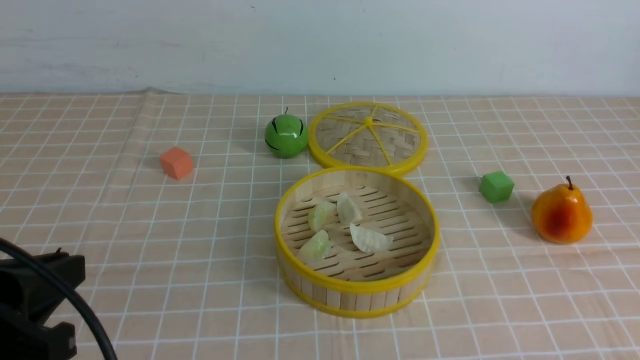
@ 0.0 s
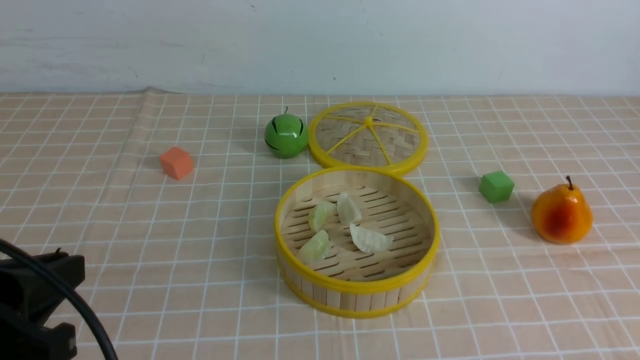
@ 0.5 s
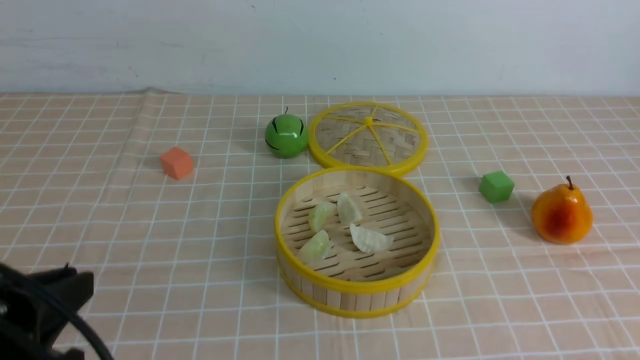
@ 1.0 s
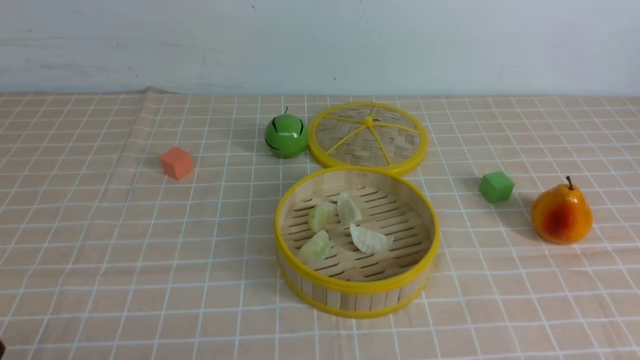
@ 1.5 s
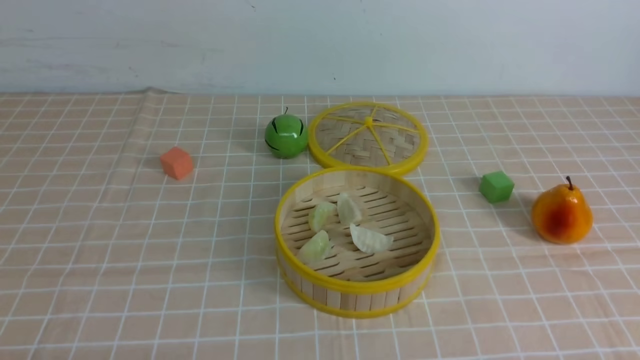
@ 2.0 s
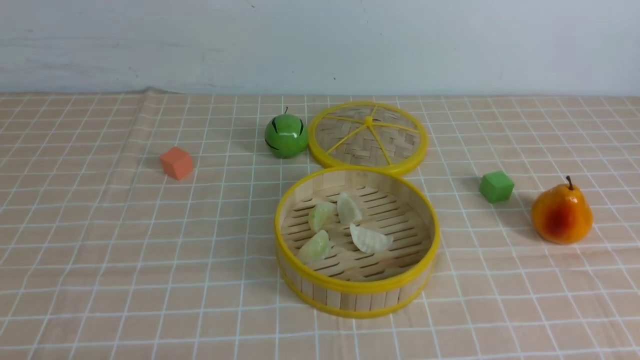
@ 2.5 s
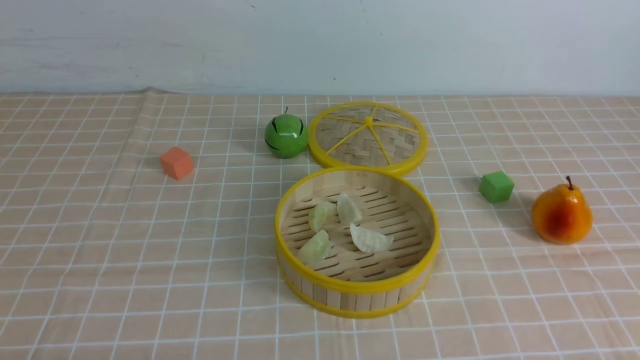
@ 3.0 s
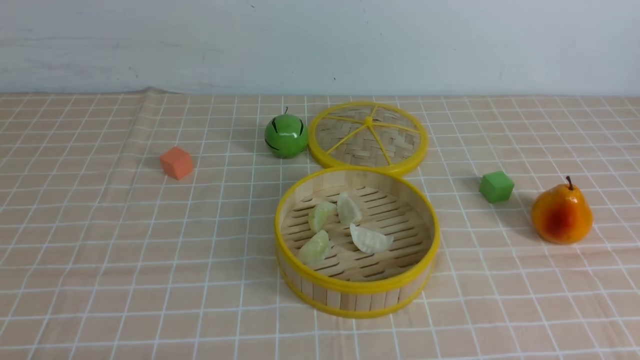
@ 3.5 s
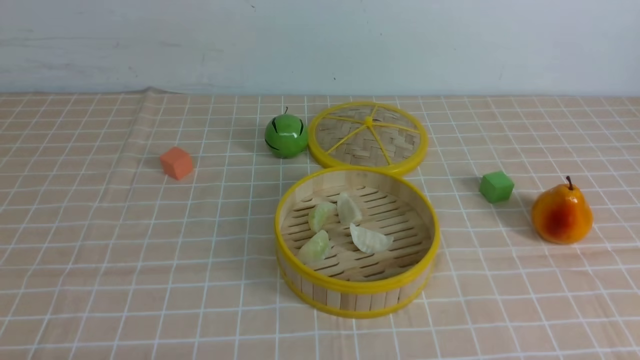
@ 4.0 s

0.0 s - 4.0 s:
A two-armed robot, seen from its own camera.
Task of the whole recording: put the dumplings into the steamer on the table with the brown tablecloth.
0.0 s - 2.0 s: The left gripper shifts approximately 15 cm downward.
2.0 s - 4.0 s: Both grippers stay put.

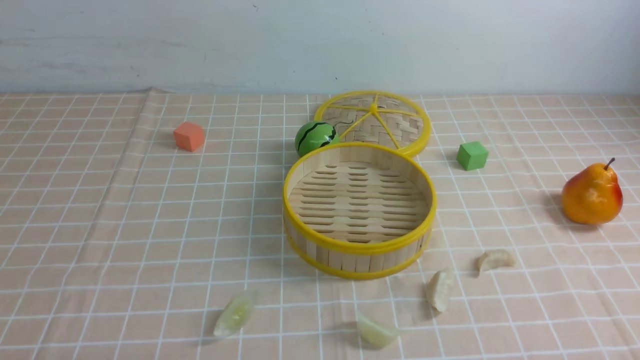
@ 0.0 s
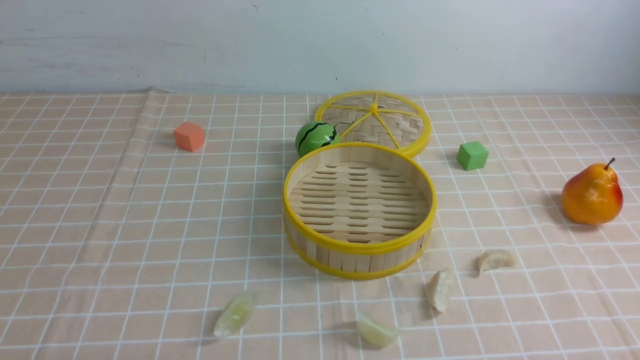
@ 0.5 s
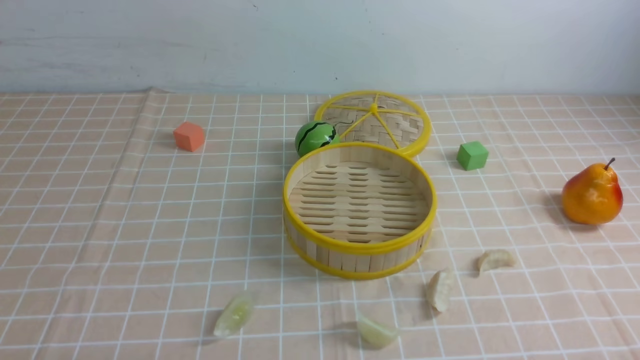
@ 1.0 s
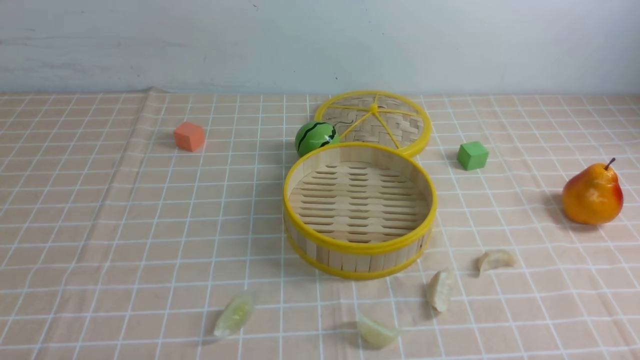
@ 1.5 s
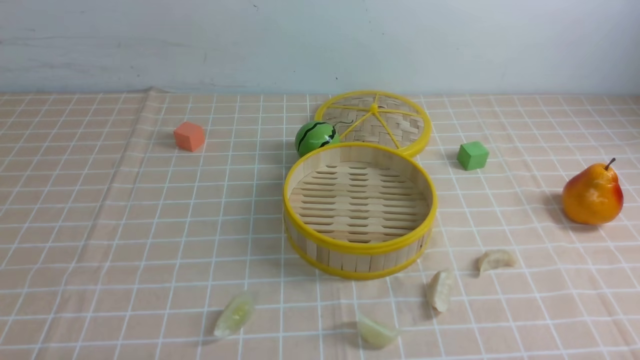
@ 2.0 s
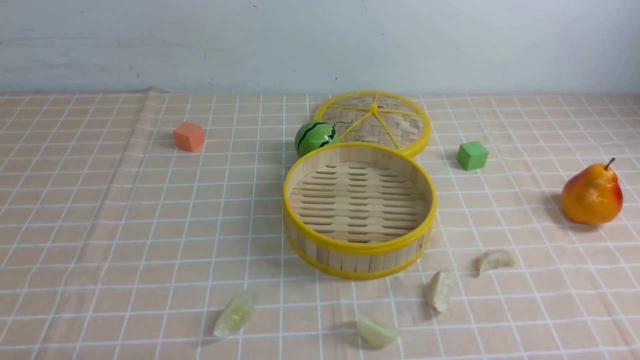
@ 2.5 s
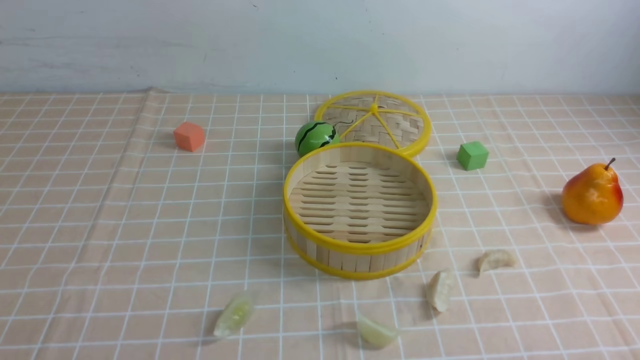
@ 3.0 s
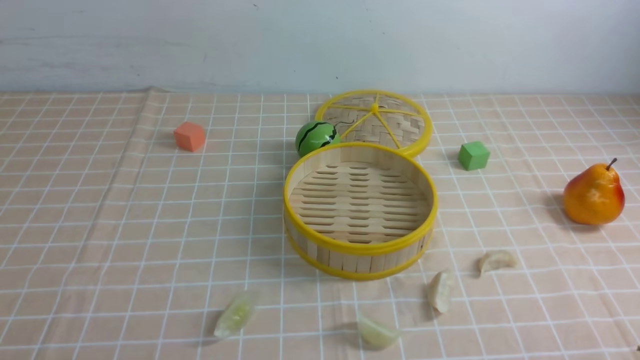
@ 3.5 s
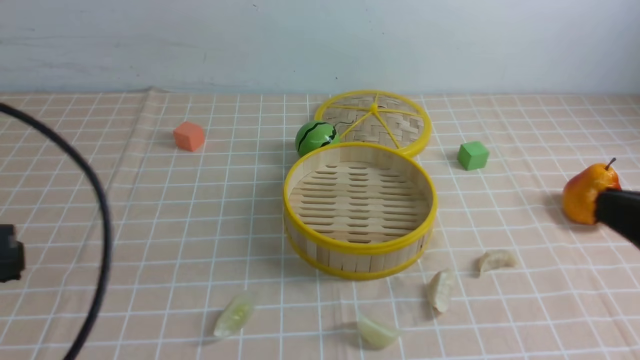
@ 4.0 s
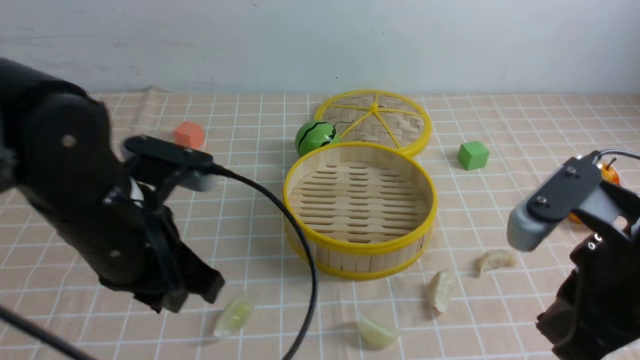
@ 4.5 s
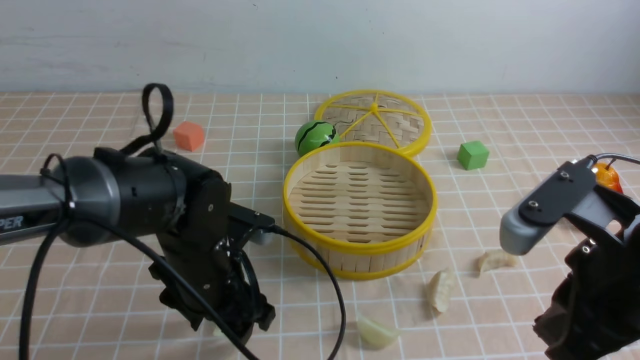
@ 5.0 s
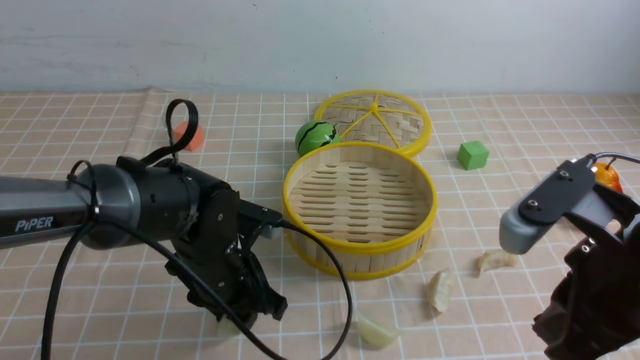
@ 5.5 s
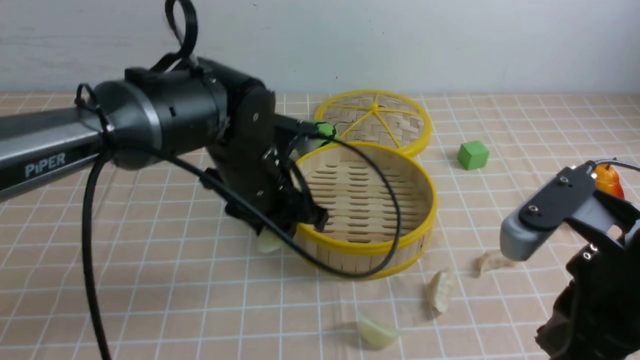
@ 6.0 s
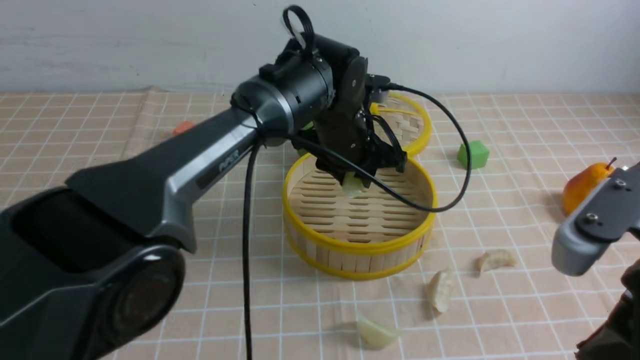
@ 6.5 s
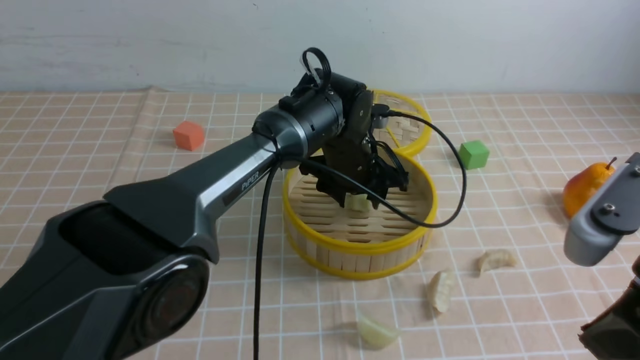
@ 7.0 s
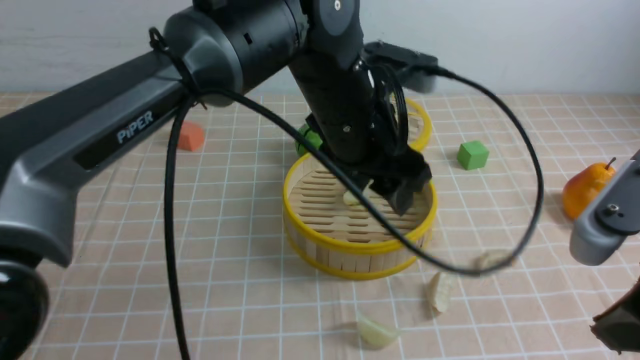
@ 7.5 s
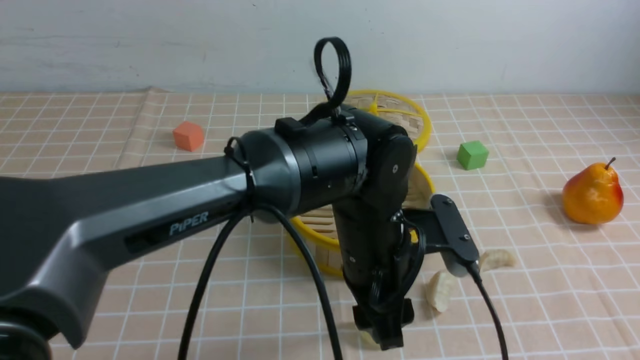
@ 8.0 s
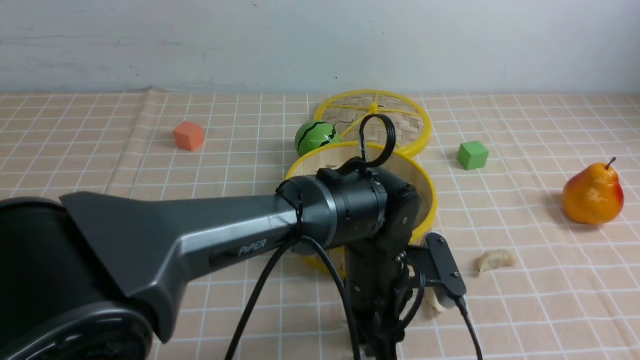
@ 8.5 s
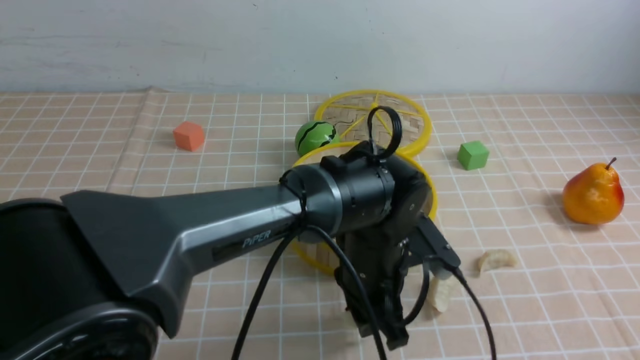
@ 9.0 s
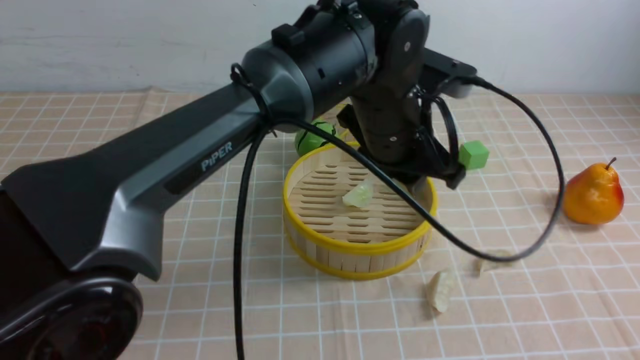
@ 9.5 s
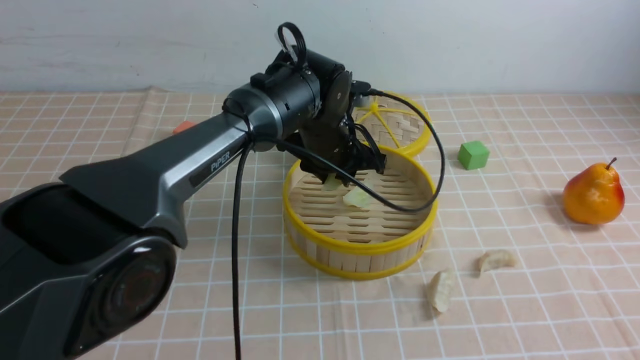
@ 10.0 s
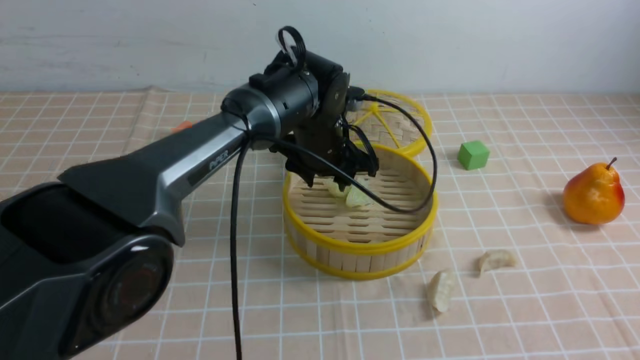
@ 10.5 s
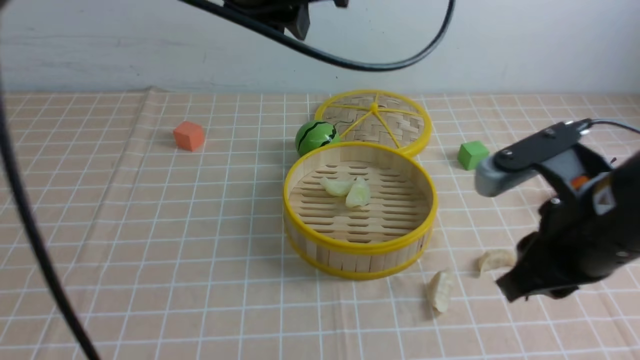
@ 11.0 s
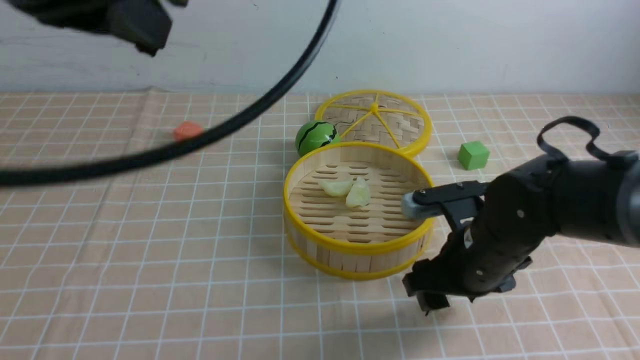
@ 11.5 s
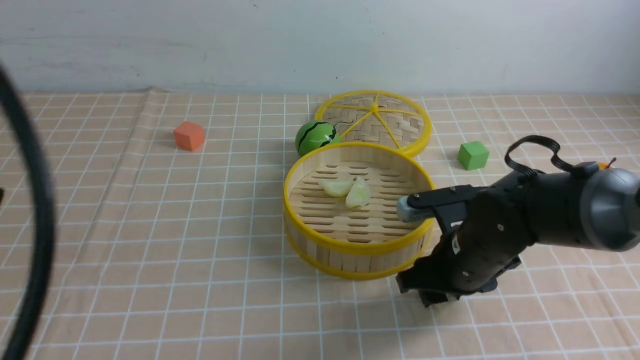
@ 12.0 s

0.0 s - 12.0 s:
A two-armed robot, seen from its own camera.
Task of the whole recording: put the dumplings into the steamer on the table with the brown tablecloth.
Step, 0.0 s - 5.0 s: use the left arm to grab a dumpling.
Step, 6.0 s - 7.0 s: use the left arm to put the dumpling into the steamer.
Step, 7.5 s - 8.5 s: use the left arm to grab a dumpling.
Step, 9.0 s - 10.5 s: use the left arm to put the dumpling into the steamer.
Step, 11.0 s - 12.0 s: use the right arm to grab a dumpling.
2.0 s - 4.0 s: The right gripper goes about 15 cm upward and forward, and closes. The left gripper heads upward, covering roughly 20 cm, and closes.
4.0 s - 6.0 s: The left gripper is displaced forward, to the right and downward by some 30 cm, and opens up. Meanwhile the right gripper is displaced to the left and forward by roughly 10 cm.
6.0 s - 8.0 s: The left gripper heads to the right and backward, covering some 15 cm; the right gripper goes approximately 15 cm backward, to the right and upward.
8.0 s - 10.0 s: The left gripper shifts approximately 15 cm forward, and closes its fingers.
10.0 s - 12.0 s: The right gripper is displaced forward, downward and to the left by some 30 cm, and opens; the left gripper moves backward, to the left and upward, some 50 cm, and closes up.

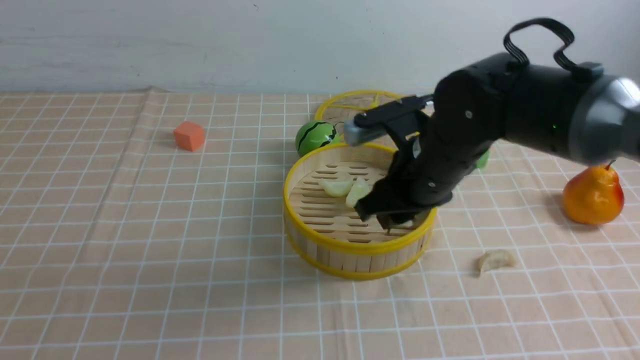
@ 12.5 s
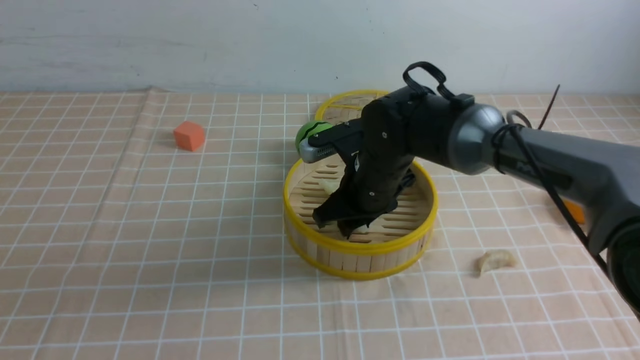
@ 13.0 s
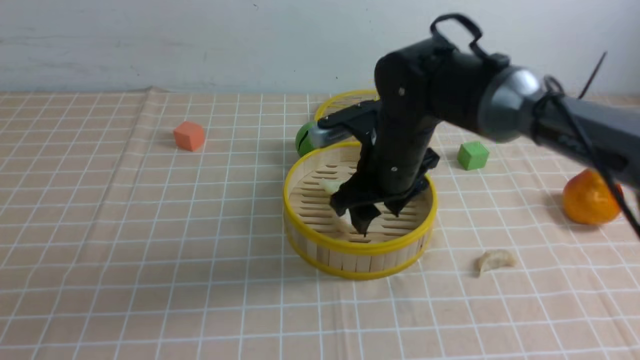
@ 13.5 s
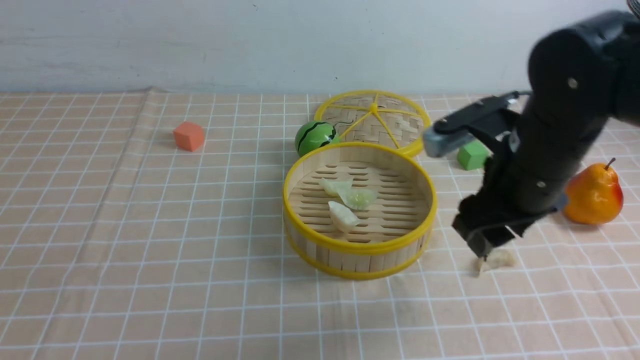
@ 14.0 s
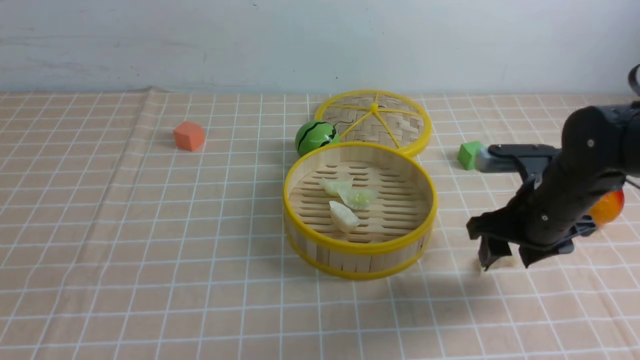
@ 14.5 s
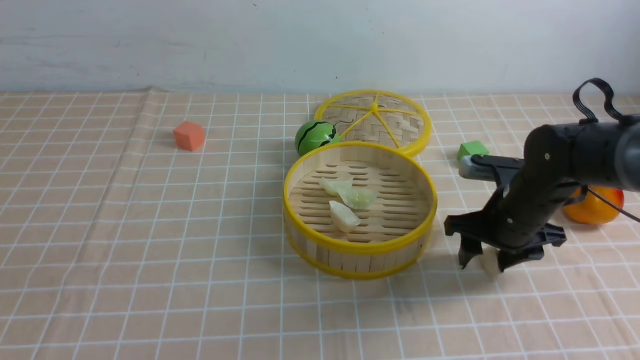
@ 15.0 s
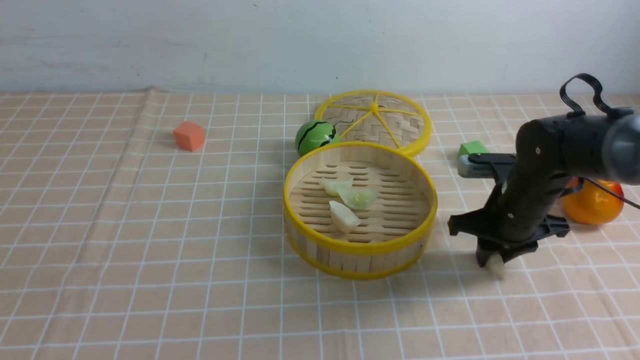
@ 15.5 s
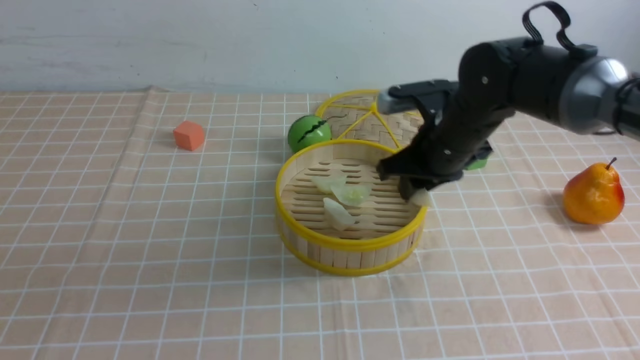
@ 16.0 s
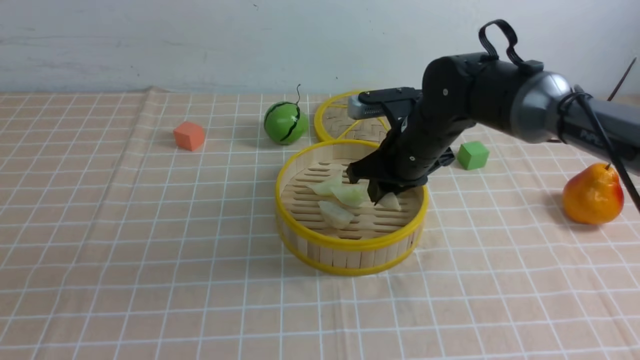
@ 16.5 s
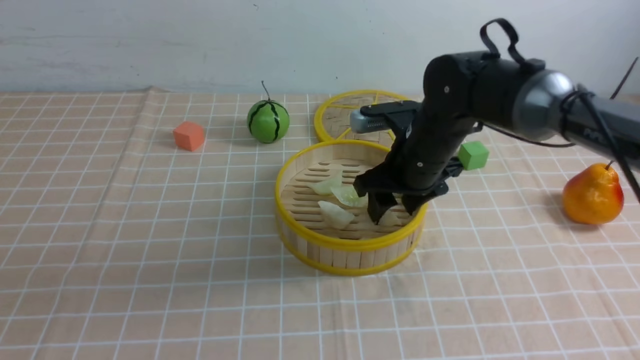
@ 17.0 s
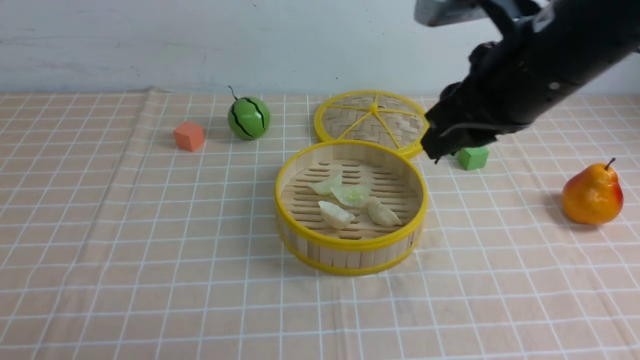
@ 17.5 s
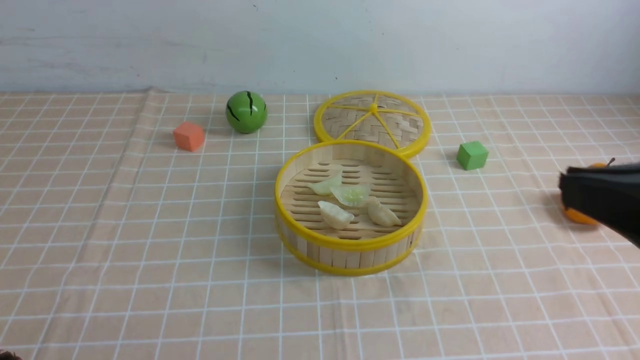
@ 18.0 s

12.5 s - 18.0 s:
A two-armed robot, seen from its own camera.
Task of the whole recording: put the dumplings into the steamer on the table with the brown tablecloth.
Step, 13.5 s - 15.5 s: use the right arm to grab a dumpling.
Step, 16.0 s - 17.0 s: use the right arm to put the dumpling into the steamer.
12.5 s - 14.5 s: The right gripper heads to the right, covering some 10 cm, and opens.
14.5 s - 16.0 s: The right gripper travels to the left and forward by about 10 cm, and closes up.
16.0 s - 18.0 s: The right gripper heads backward and upward, covering about 30 cm, and opens, then closes once more. The left gripper travels downward by about 15 cm.
